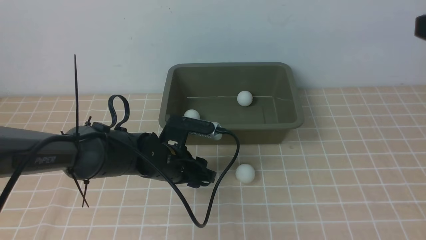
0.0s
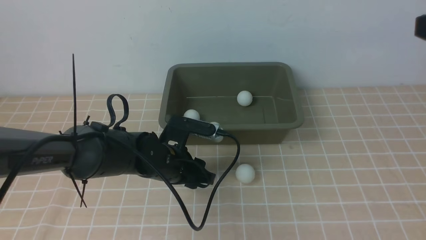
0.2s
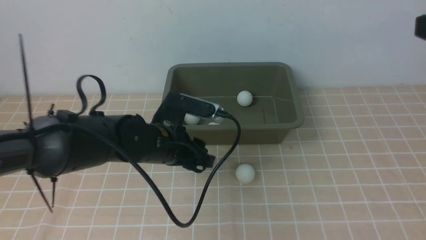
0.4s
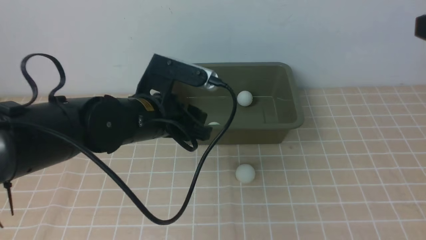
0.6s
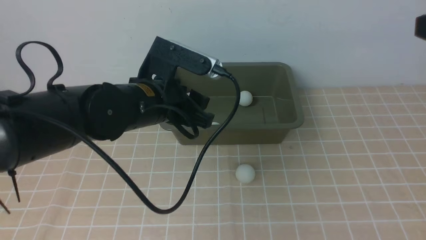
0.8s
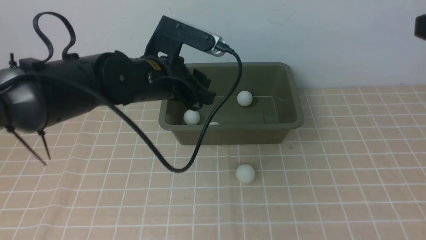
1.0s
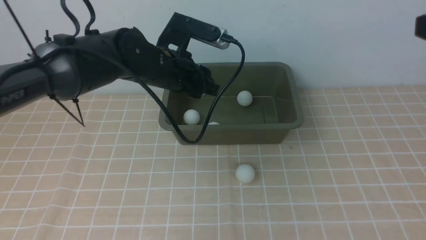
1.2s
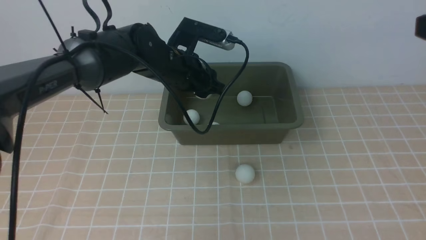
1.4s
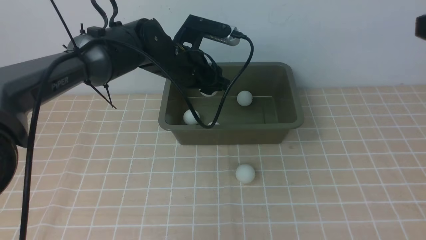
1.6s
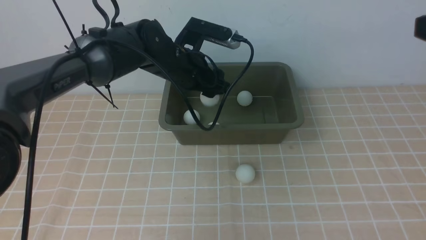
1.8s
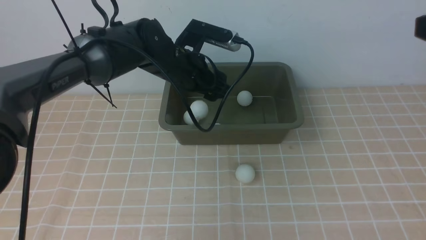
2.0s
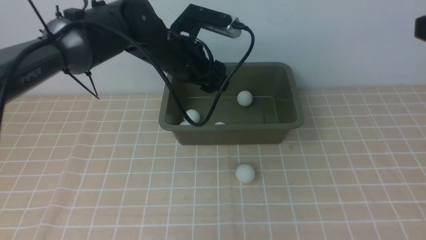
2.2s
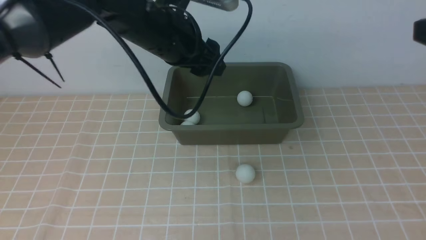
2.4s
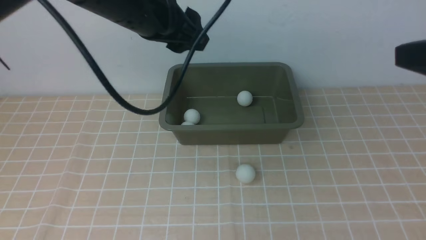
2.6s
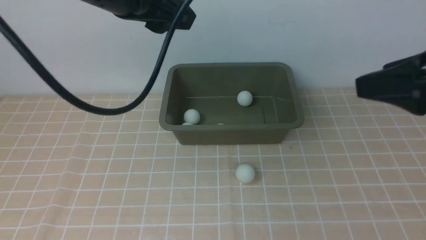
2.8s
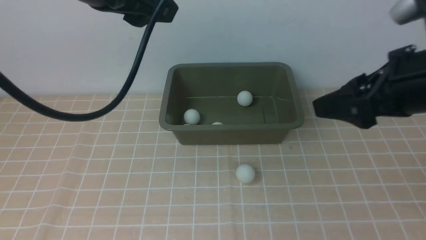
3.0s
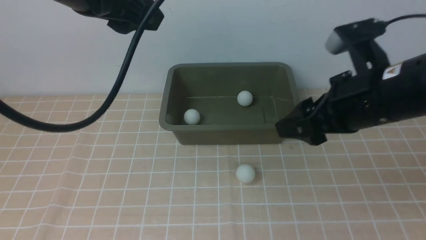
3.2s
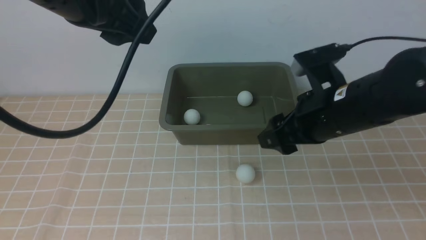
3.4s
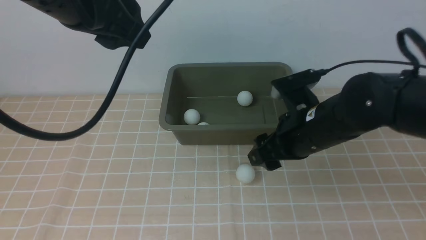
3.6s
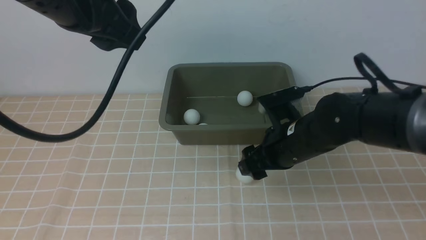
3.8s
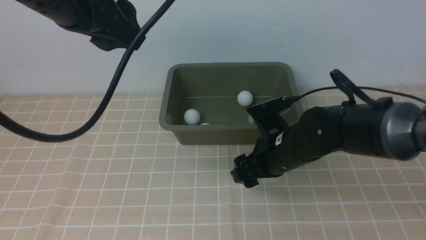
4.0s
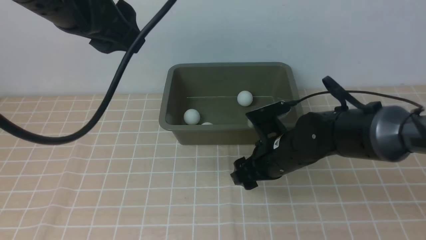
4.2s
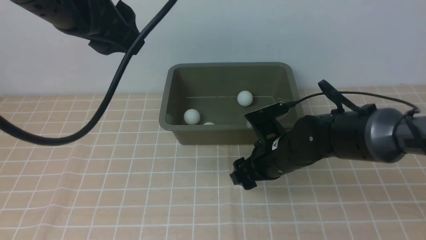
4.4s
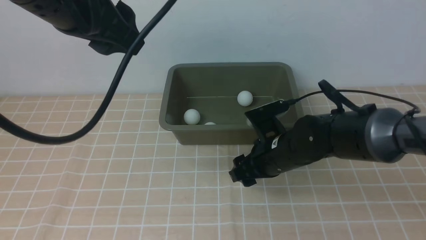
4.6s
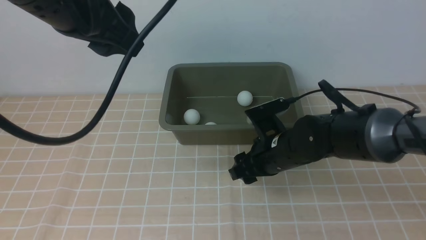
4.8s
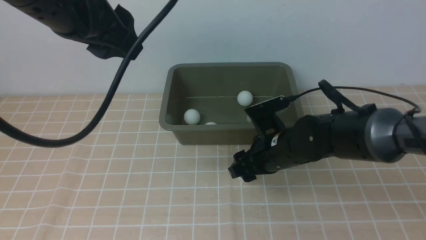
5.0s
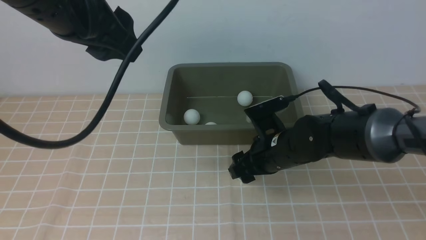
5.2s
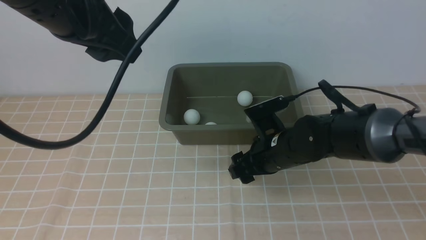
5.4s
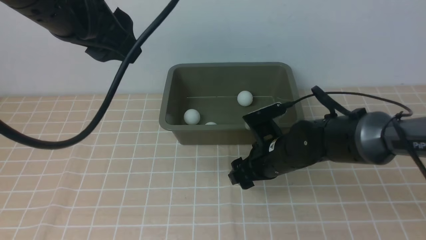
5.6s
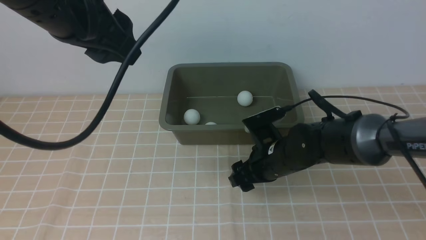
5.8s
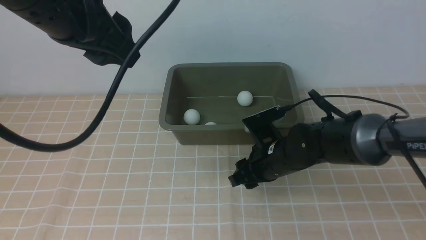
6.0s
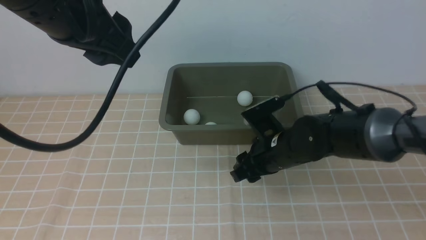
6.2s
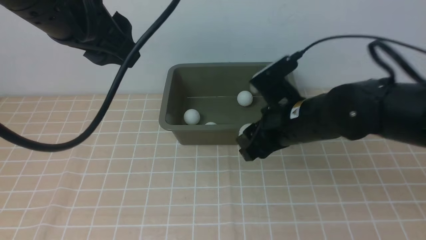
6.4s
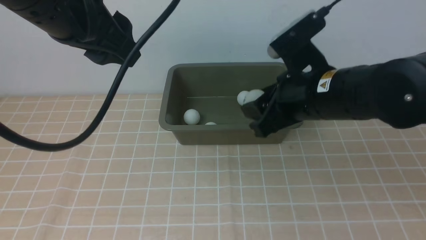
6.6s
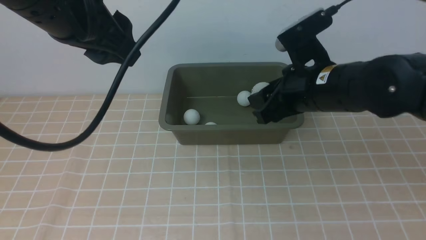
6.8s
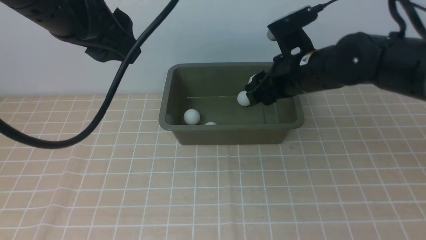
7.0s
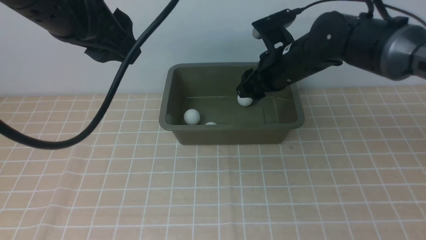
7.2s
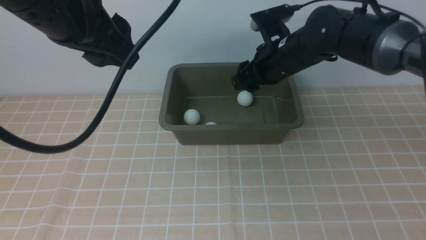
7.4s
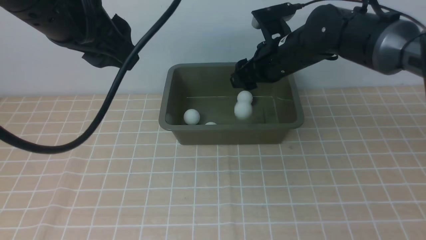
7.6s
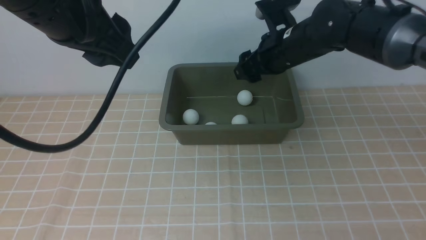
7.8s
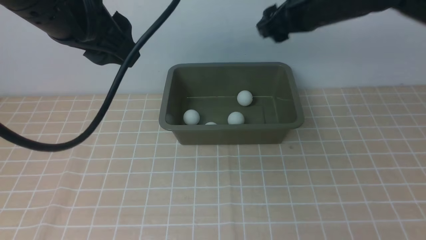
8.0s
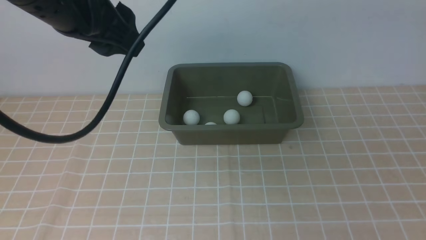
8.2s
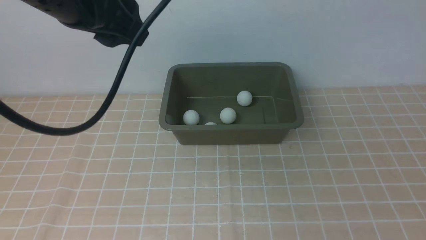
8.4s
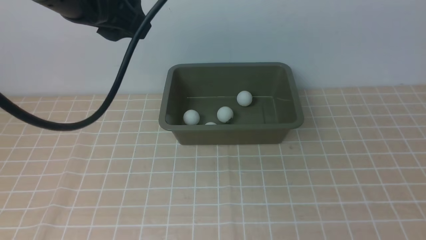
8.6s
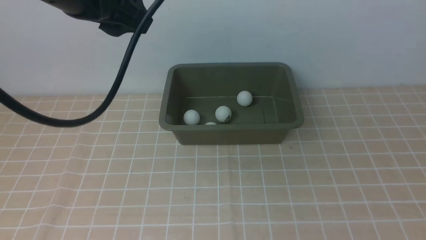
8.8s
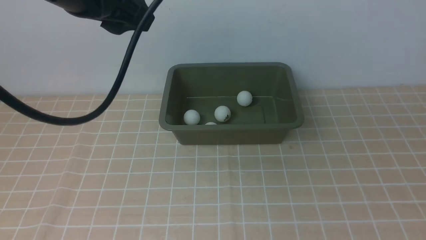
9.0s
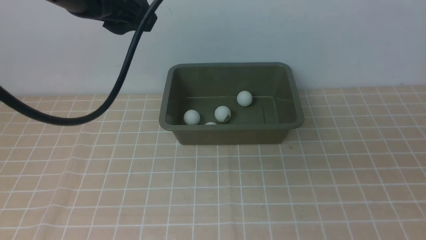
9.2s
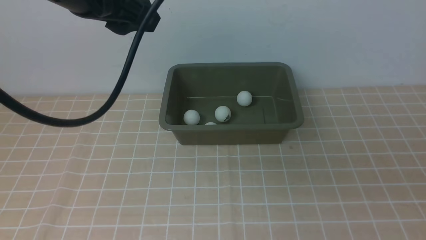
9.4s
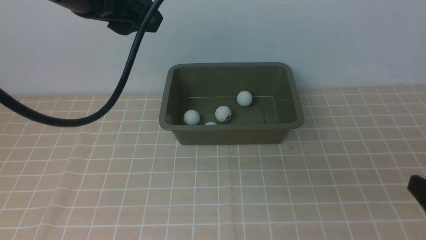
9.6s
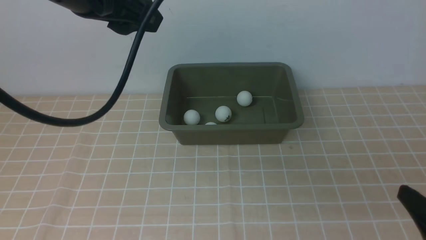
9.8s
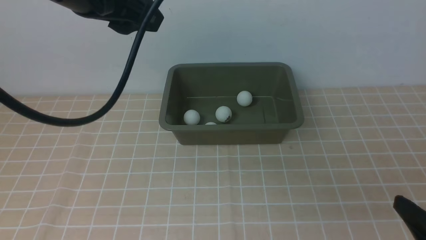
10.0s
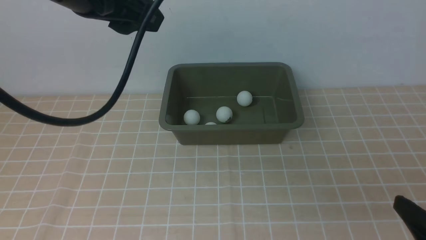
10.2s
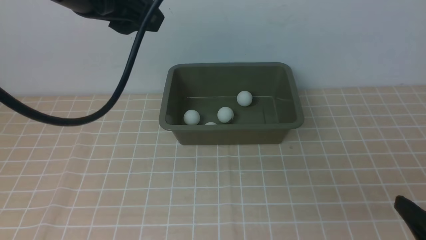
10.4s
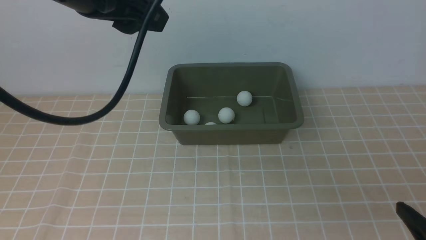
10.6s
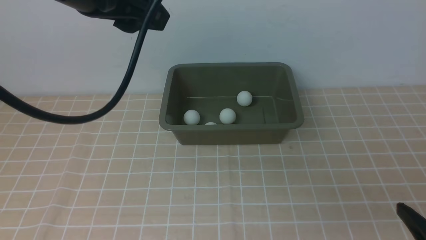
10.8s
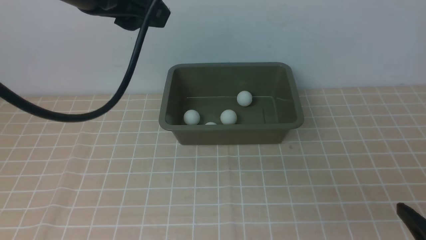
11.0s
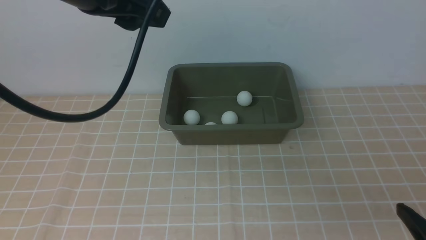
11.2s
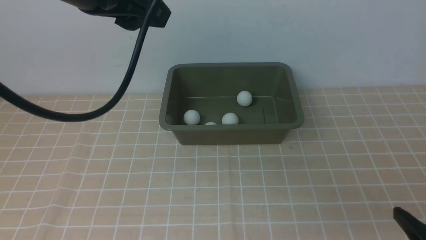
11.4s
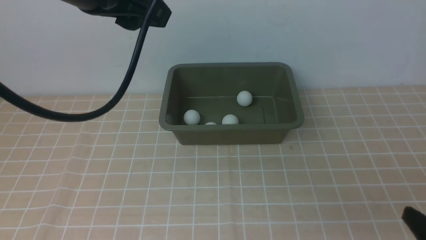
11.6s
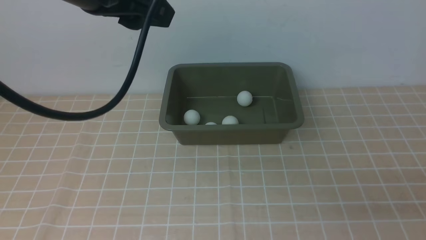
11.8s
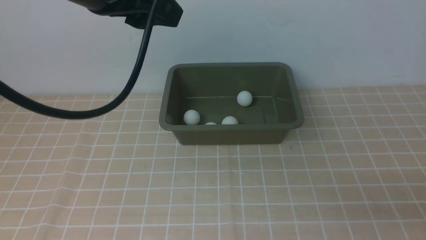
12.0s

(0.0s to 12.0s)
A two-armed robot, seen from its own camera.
Step, 0.6s - 2.4s: use the left arm to put the table tennis ball into the box.
Step, 2.6s - 6.2s: use the right arm to clamp the table tennis ball closest to it.
Step, 6.4s - 8.0s: use the right arm to put the table tennis ball into the box.
0.0s - 1.6s: The left gripper travels forward and upward by about 15 cm.
1.6s - 3.0s: The right gripper heads to the left and downward, covering some 10 cm. Meanwhile the left gripper moves upward and backward, some 25 cm, and opens, then closes again.
3.0s - 4.4s: The right gripper moves downward and to the left, roughly 25 cm.
4.4s - 6.0s: The right gripper closes.
6.0s - 7.6s: The right gripper moves upward and forward, some 15 cm.
7.6s - 9.0s: The right gripper is displaced backward, to the right and upward by approximately 40 cm.
9.0s - 10.4s: The right gripper heads downward, covering roughly 20 cm.

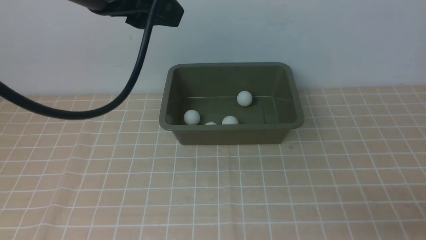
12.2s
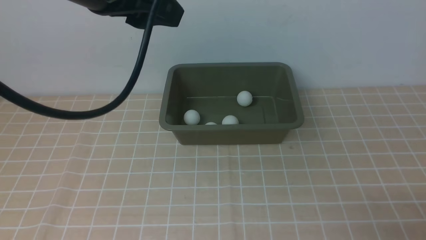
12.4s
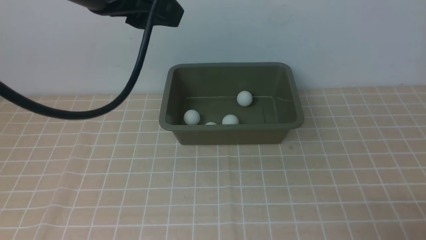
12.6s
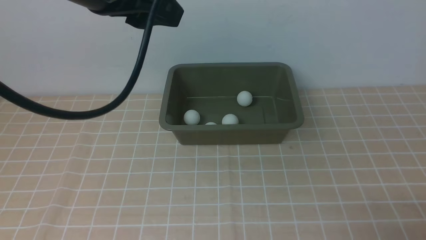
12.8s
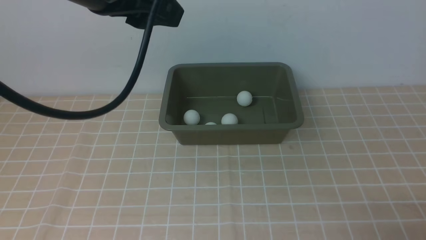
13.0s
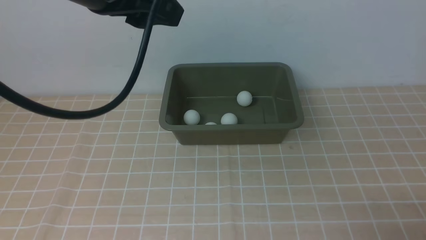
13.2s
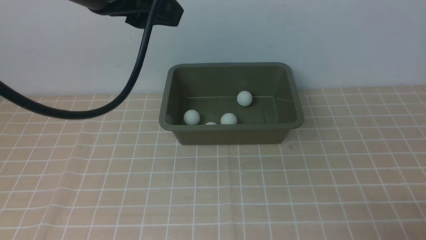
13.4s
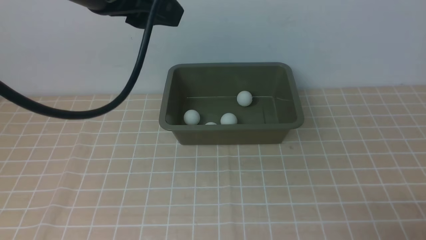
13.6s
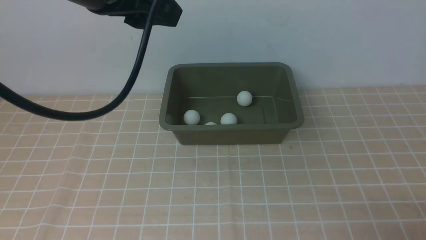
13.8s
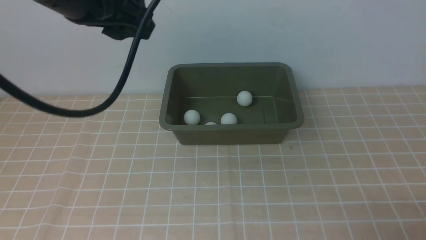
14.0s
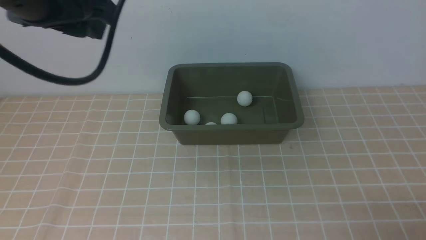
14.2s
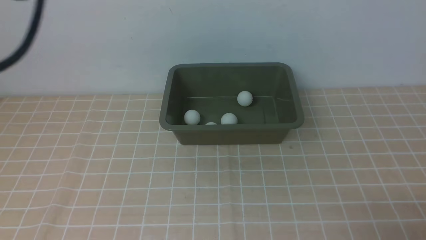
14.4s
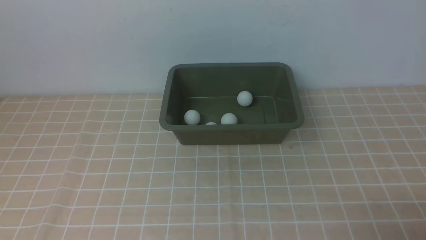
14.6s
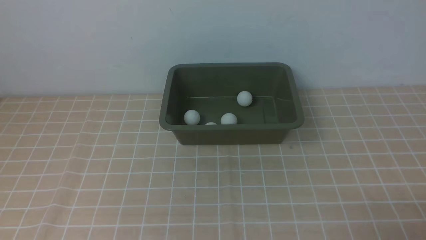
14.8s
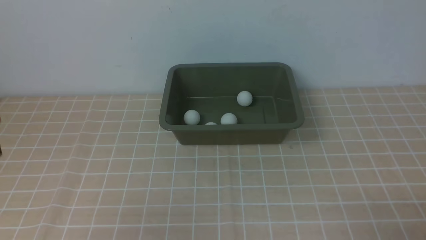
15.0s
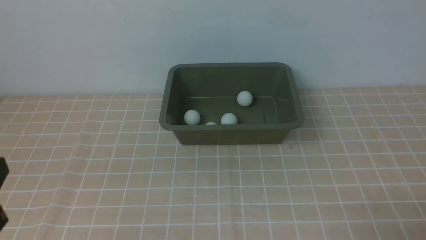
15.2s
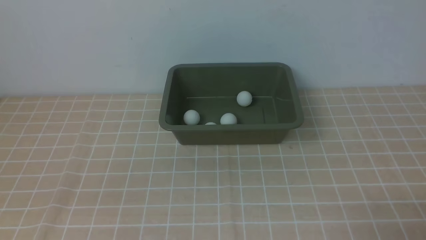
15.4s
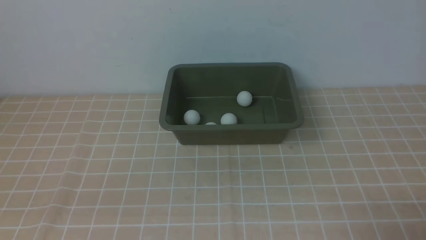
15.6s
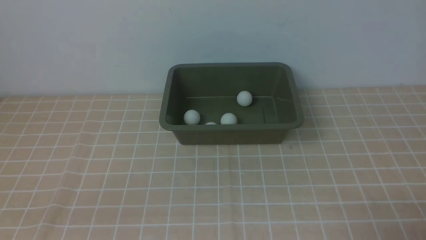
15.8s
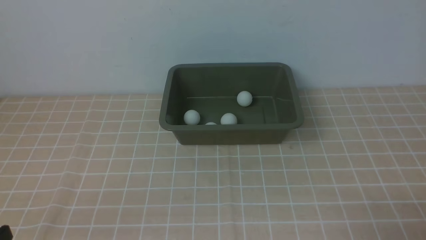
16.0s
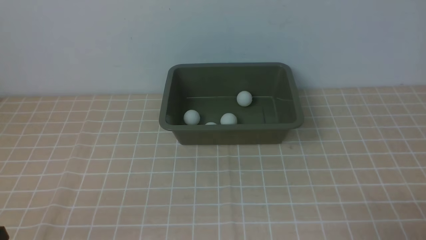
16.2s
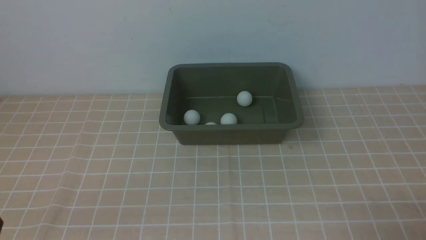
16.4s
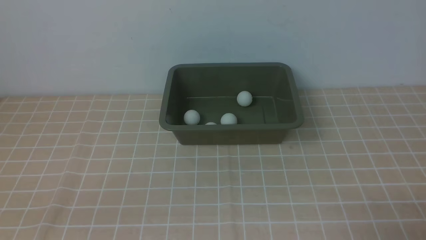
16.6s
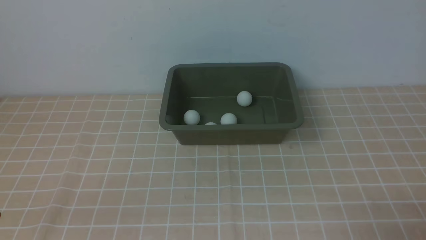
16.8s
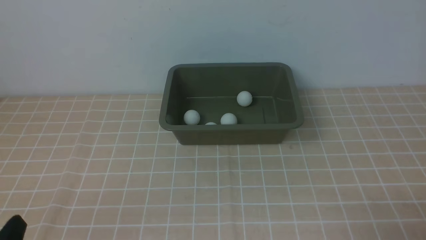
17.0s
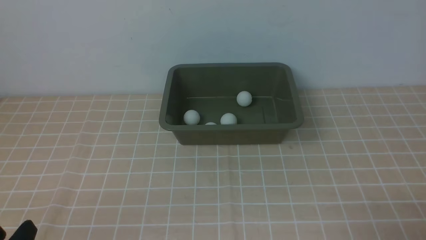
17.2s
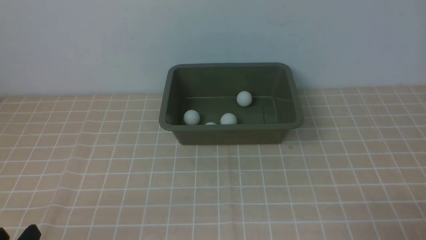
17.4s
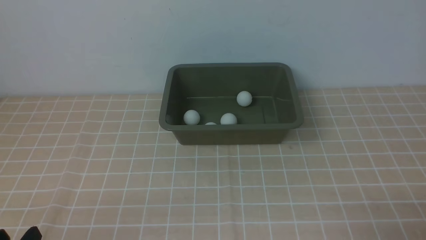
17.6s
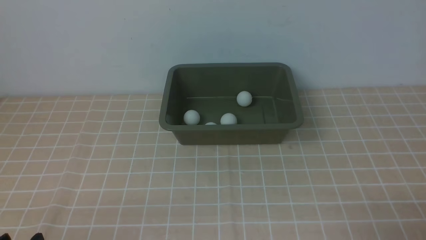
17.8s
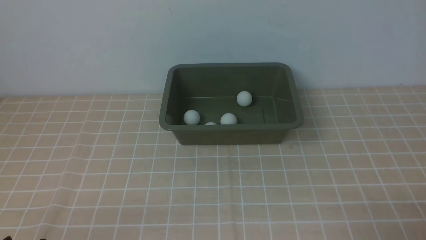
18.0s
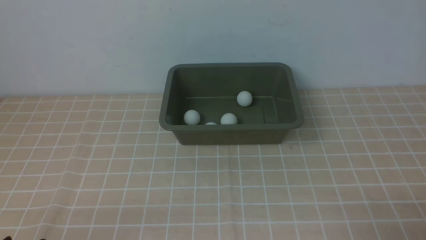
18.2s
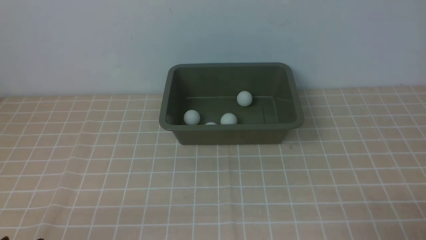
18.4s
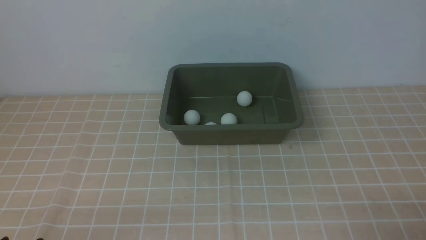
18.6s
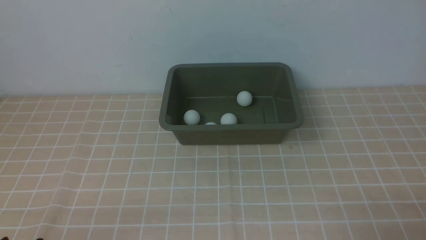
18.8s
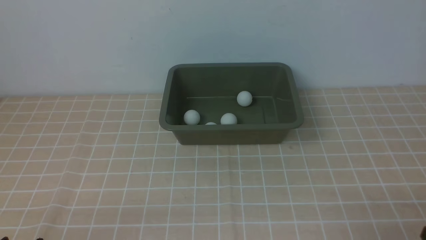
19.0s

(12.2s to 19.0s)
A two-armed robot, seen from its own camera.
13.6s - 15.0s: The left gripper goes about 25 cm backward, to the left and downward.
